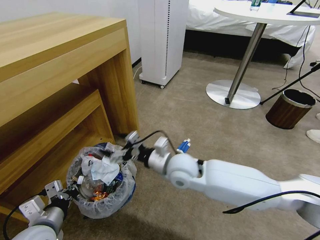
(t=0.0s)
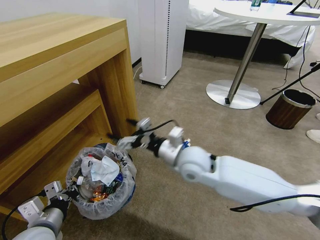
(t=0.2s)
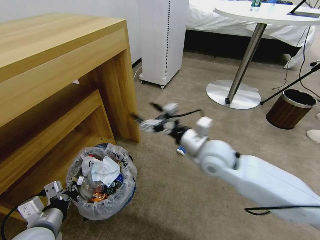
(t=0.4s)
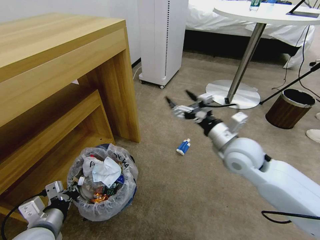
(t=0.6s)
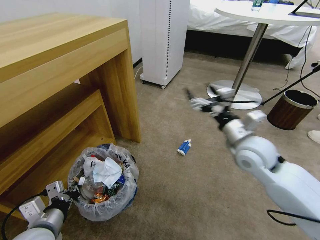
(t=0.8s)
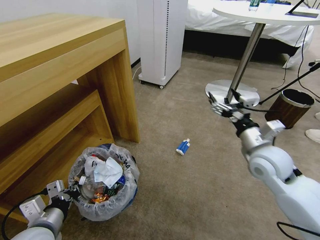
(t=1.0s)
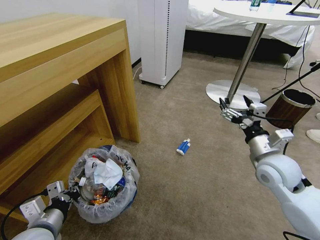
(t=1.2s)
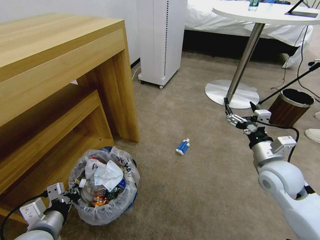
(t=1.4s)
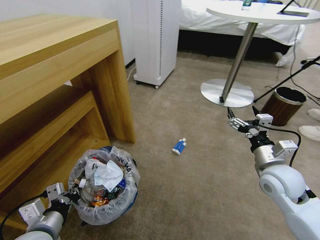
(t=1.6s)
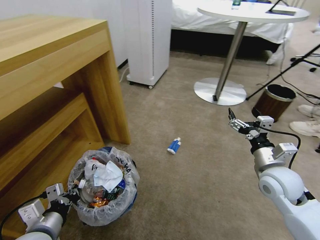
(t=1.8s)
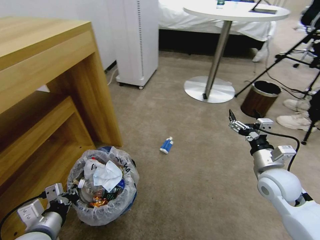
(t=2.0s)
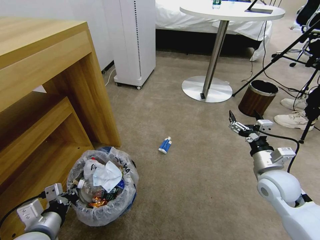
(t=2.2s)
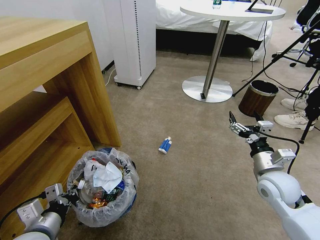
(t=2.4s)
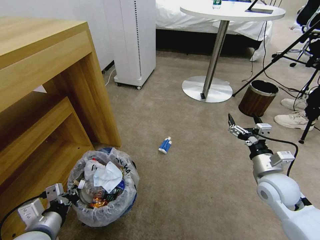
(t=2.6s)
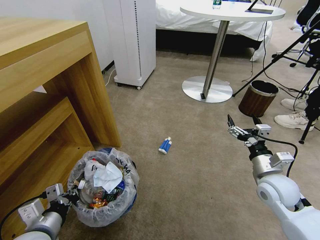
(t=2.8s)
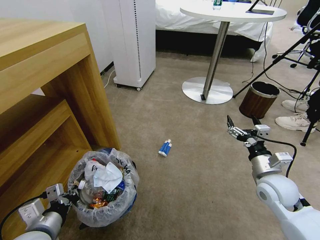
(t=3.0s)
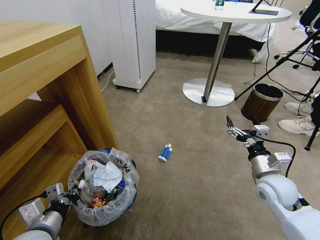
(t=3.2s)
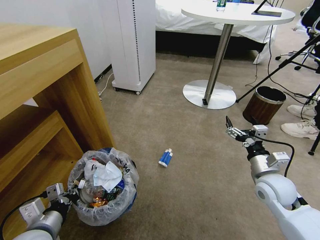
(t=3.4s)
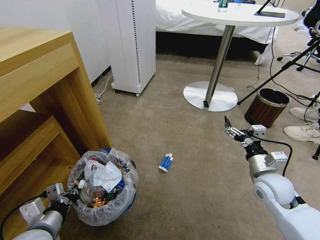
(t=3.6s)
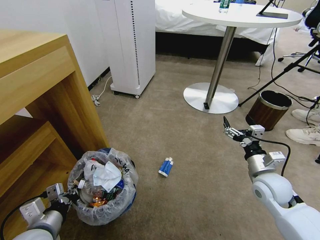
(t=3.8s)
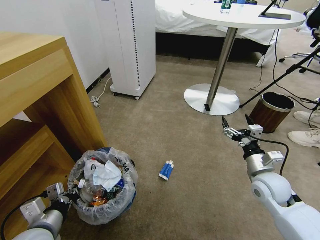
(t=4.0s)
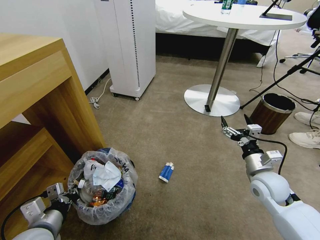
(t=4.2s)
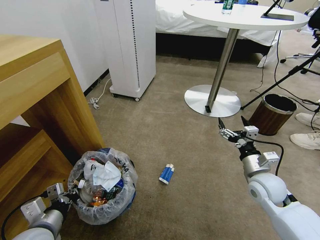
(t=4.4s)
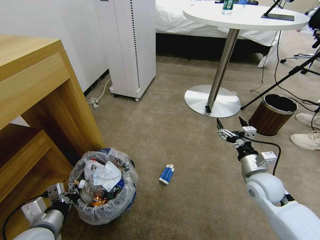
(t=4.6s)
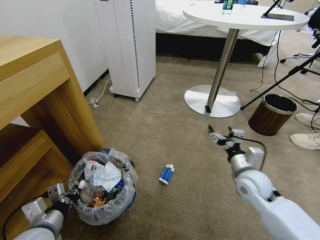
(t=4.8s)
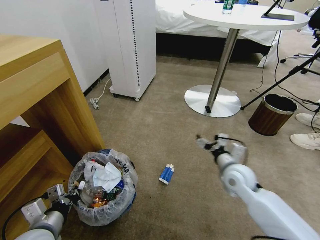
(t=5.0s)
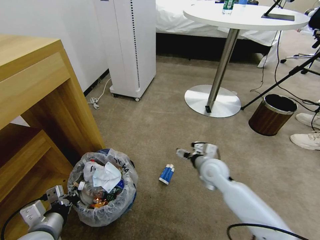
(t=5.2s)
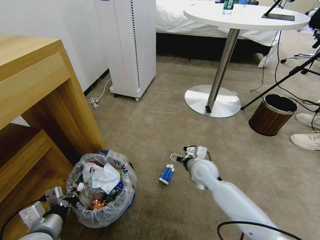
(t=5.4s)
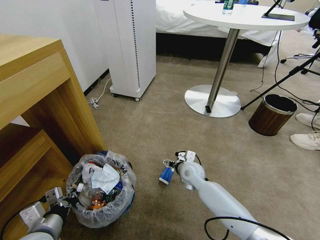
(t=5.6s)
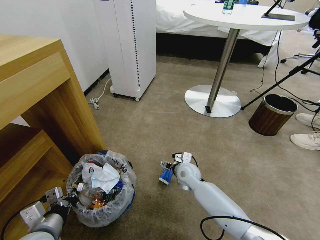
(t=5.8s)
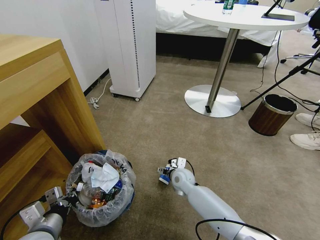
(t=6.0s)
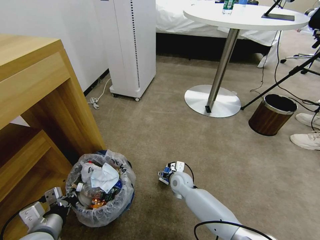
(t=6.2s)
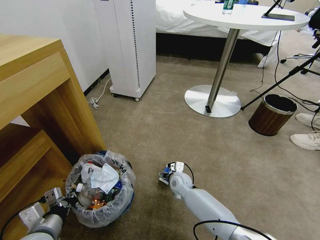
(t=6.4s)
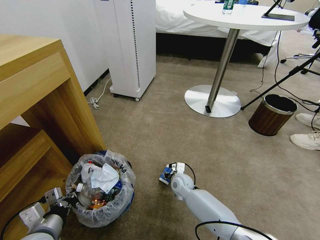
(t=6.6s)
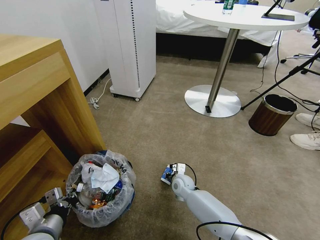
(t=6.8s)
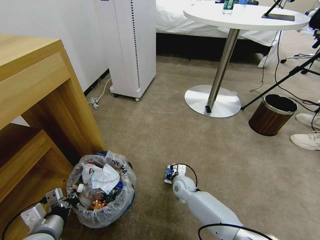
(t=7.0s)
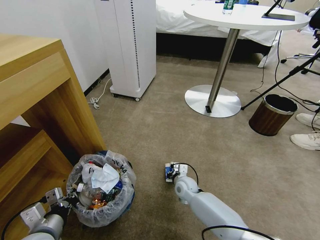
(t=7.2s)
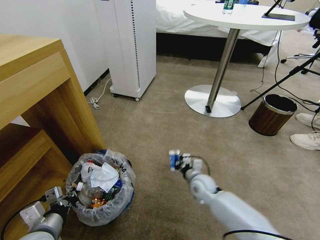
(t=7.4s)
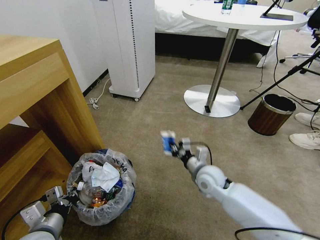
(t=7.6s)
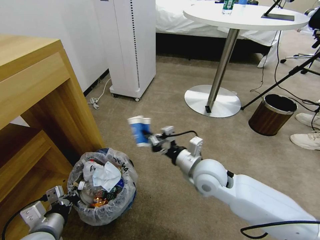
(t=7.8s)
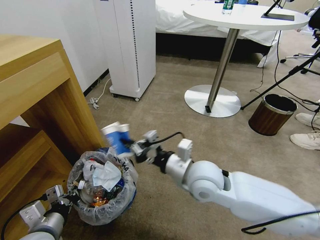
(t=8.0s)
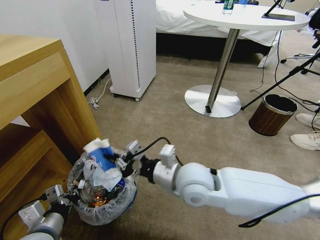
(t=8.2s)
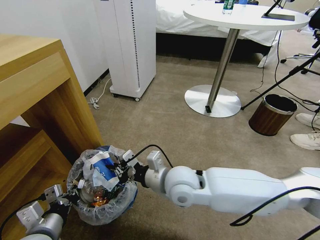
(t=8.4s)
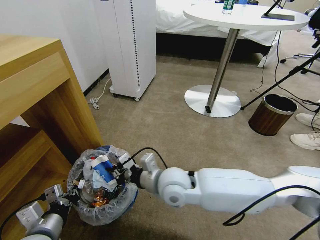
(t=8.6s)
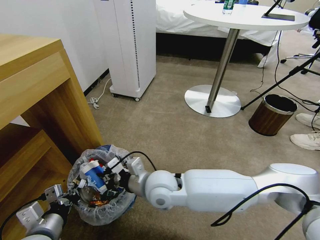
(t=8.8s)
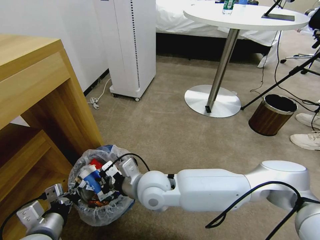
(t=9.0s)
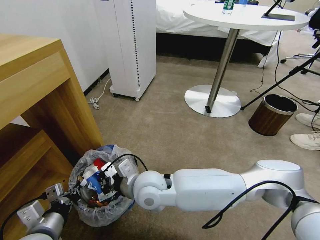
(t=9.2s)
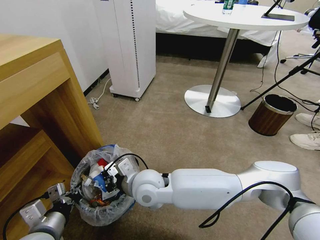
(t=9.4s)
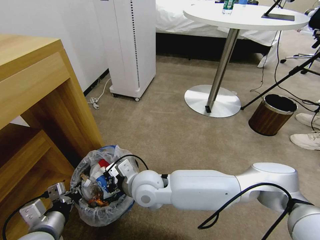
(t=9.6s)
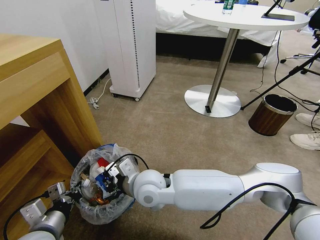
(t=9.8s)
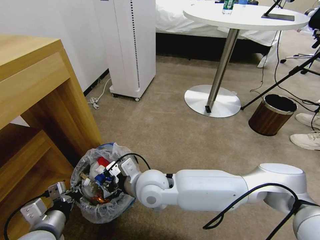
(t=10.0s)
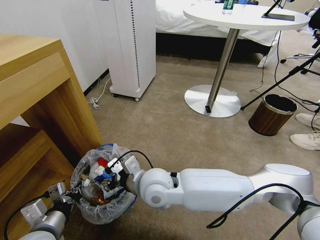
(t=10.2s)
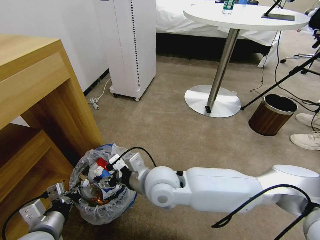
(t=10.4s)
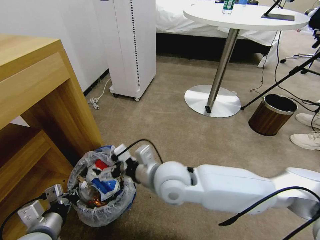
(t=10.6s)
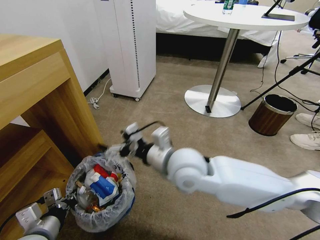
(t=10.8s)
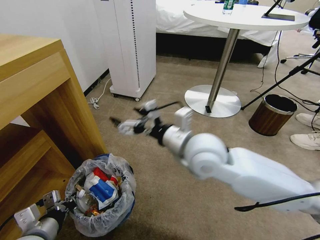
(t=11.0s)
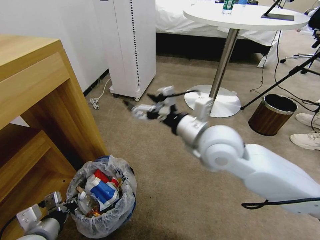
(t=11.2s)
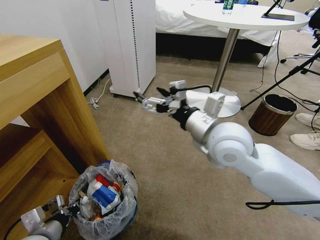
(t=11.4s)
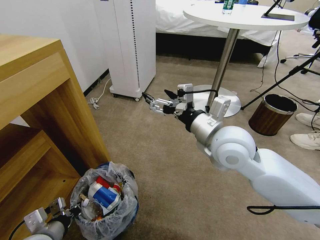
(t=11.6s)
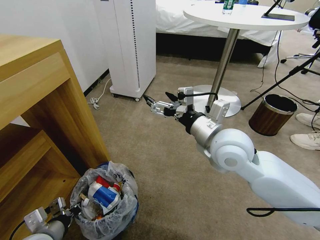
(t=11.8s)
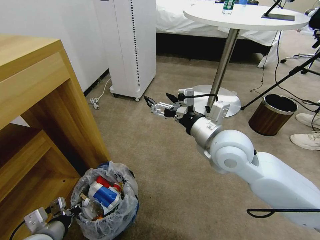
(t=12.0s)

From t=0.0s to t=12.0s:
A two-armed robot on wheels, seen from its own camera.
Task of the whole recording: Pick up the trash bin and place the garbage on the floor into it.
From t=0.0s to t=1.6s: The right gripper shifts approximately 25 cm to the right.
From t=4.4s to t=6.0s: The right gripper moves to the left, downward and forward, about 30 cm.
From t=6.0s to t=7.6s: The right gripper goes roughly 10 cm upward and to the right, and closes its fingers.
From t=7.6s to t=9.0s: The right gripper goes approximately 20 cm to the left and upward.
From t=9.0s to t=10.4s: The right gripper opens its fingers.
From t=10.4s to t=12.0s: The right gripper heads to the right and upward, covering some 20 cm.

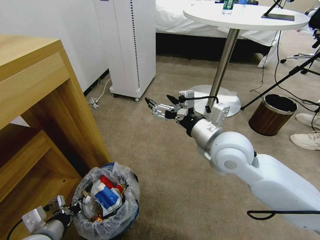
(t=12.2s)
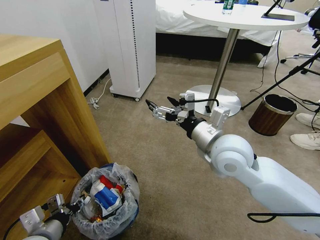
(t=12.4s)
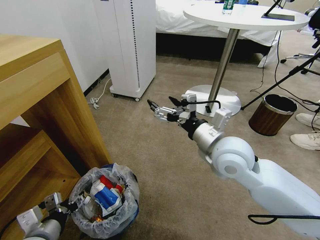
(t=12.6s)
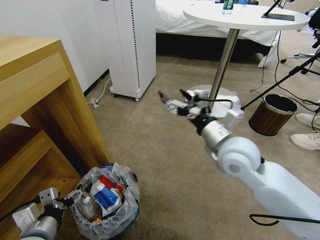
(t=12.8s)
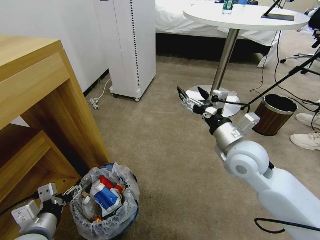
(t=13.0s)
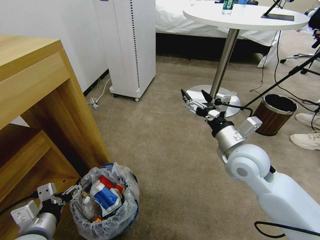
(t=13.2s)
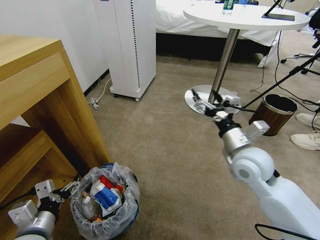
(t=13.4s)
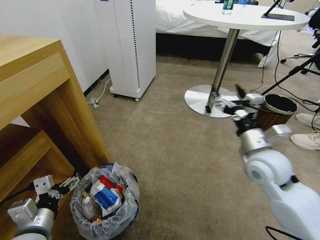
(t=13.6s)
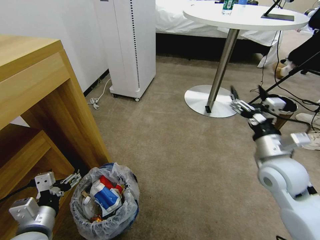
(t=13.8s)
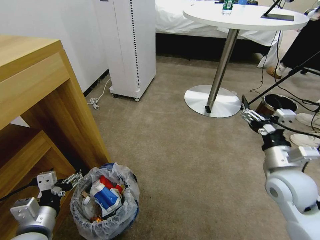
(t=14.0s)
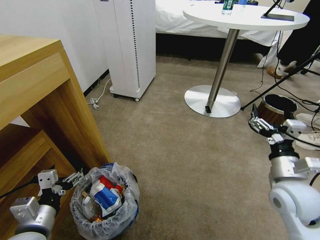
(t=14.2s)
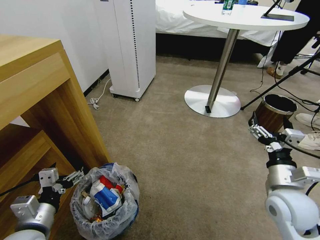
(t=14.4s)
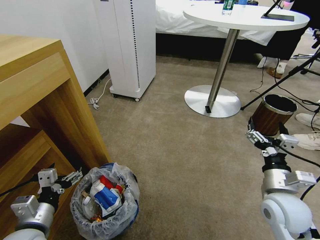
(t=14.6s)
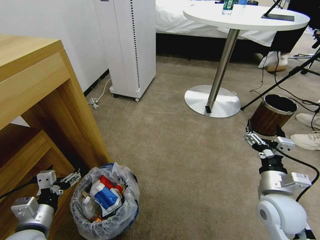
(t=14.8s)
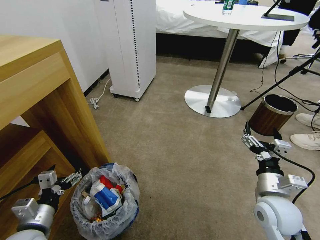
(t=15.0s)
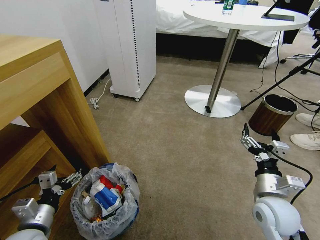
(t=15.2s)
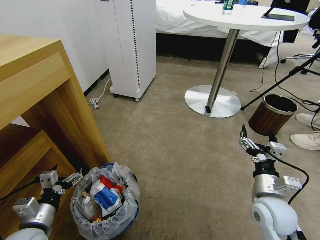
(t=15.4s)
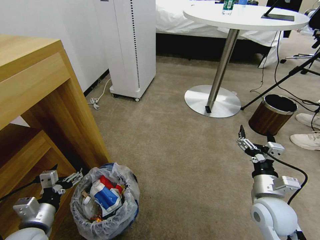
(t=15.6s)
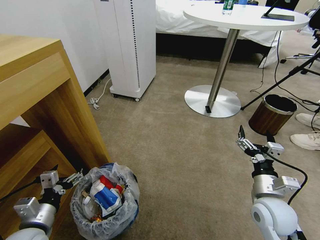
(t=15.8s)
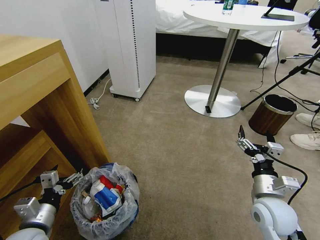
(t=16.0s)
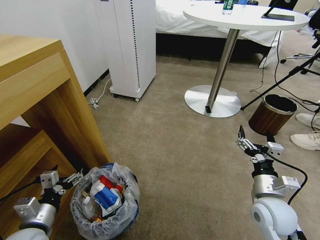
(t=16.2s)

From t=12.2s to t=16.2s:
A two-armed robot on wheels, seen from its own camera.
Task of the whole recording: Pick up the trash bin and place the garbage on the floor into it.
From t=12.2s to t=13.6s: The right gripper is displaced to the right and downward by about 15 cm. Meanwhile the left gripper opens up.
From t=13.6s to t=14.8s: The right gripper is displaced downward and backward by approximately 10 cm.
From t=14.8s to t=16.2s: The grippers stay close to where they were, moving slightly.
